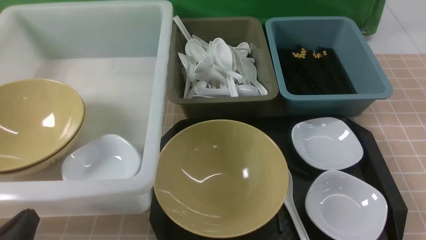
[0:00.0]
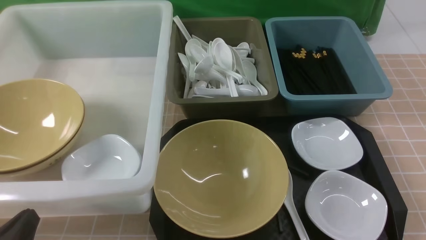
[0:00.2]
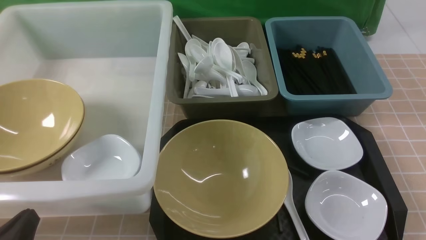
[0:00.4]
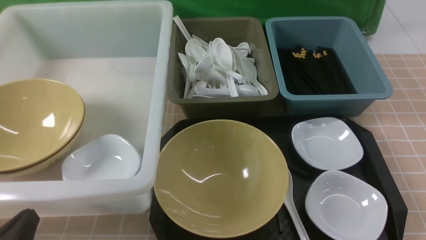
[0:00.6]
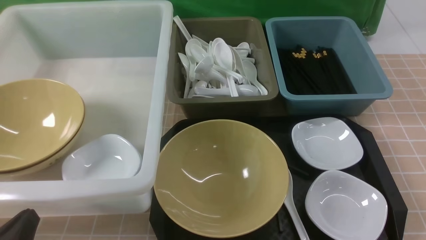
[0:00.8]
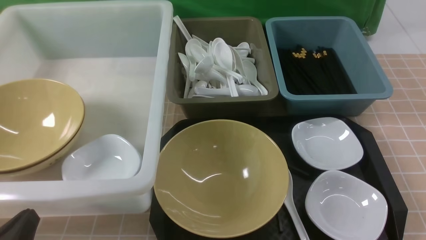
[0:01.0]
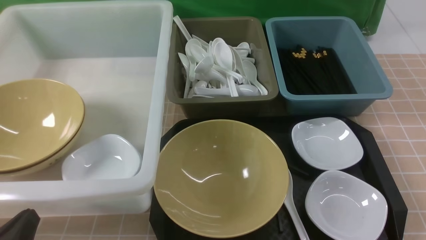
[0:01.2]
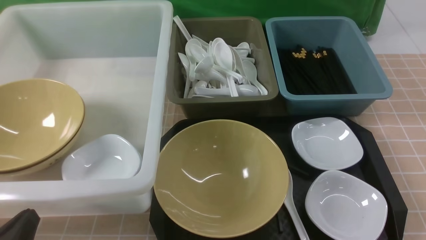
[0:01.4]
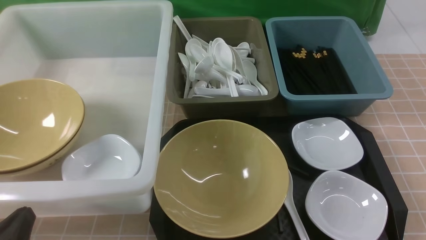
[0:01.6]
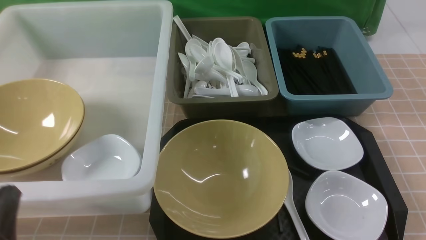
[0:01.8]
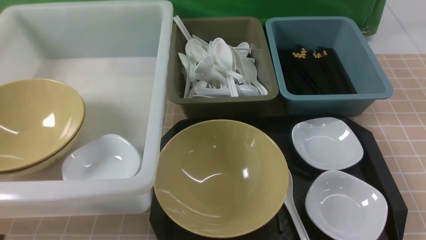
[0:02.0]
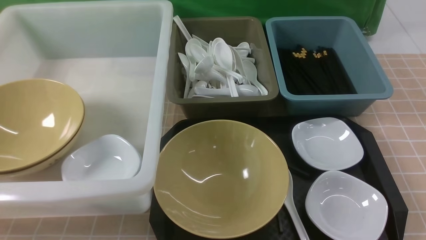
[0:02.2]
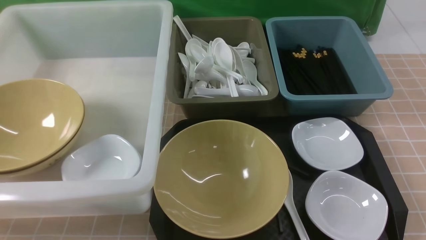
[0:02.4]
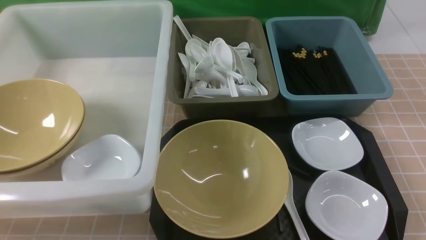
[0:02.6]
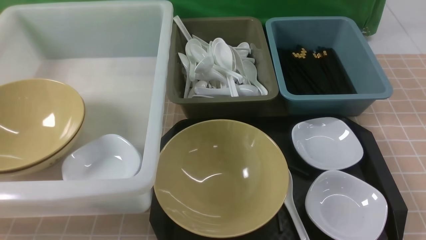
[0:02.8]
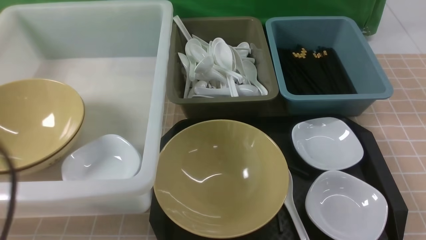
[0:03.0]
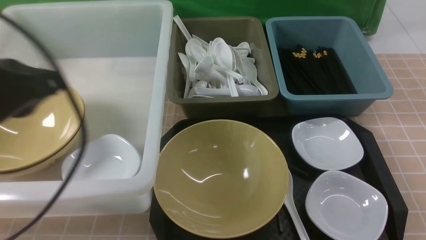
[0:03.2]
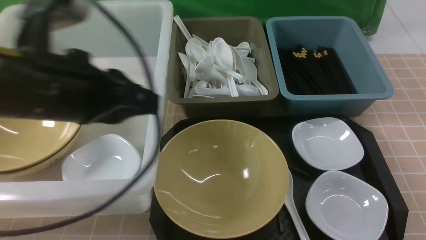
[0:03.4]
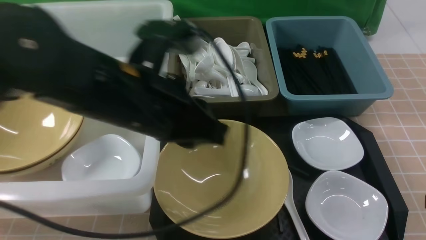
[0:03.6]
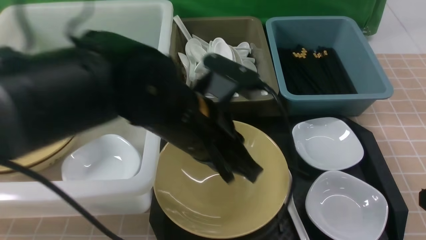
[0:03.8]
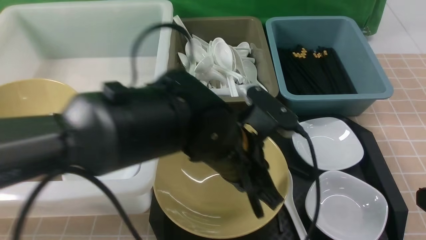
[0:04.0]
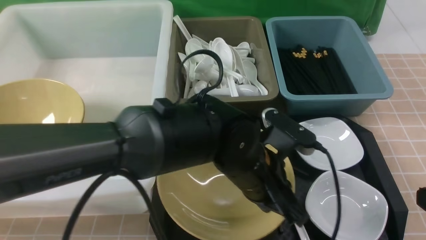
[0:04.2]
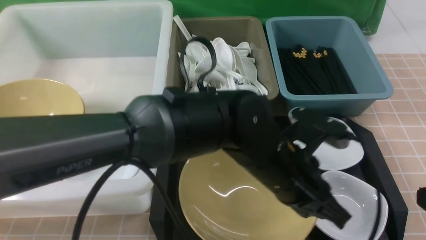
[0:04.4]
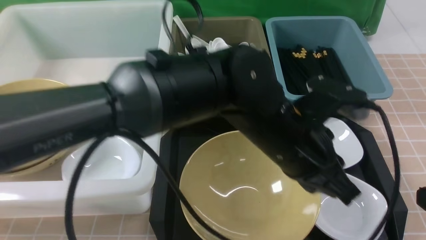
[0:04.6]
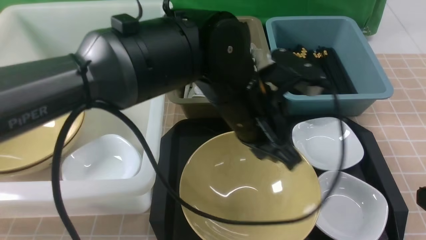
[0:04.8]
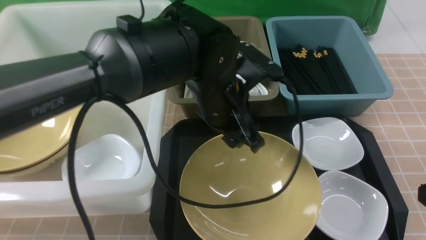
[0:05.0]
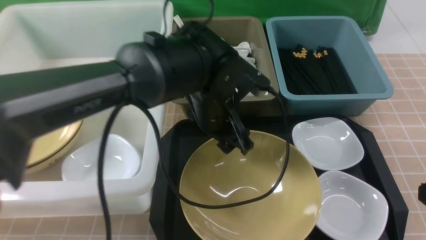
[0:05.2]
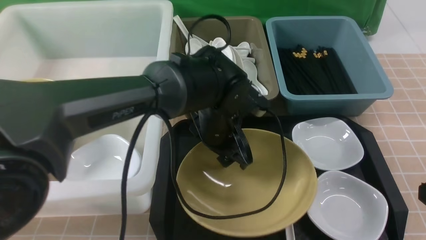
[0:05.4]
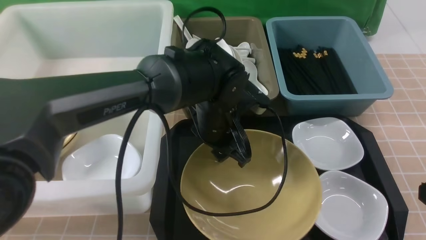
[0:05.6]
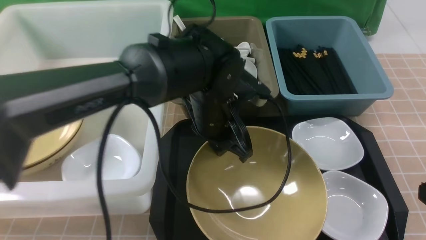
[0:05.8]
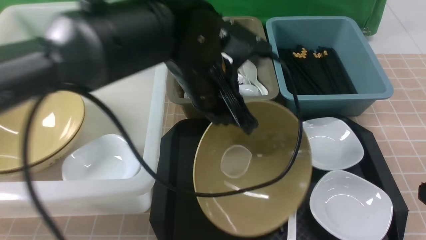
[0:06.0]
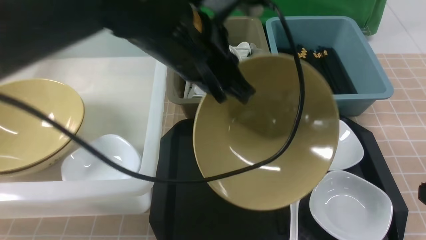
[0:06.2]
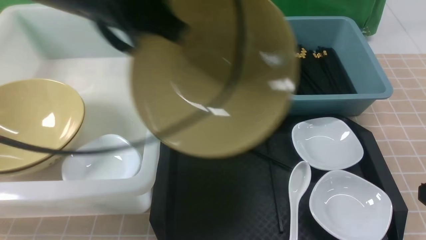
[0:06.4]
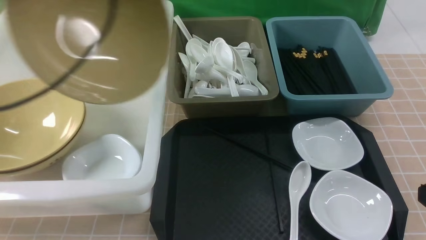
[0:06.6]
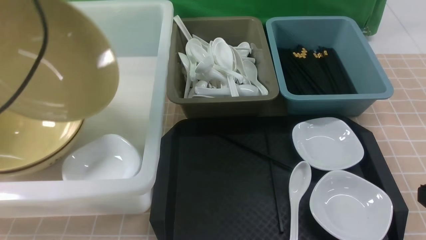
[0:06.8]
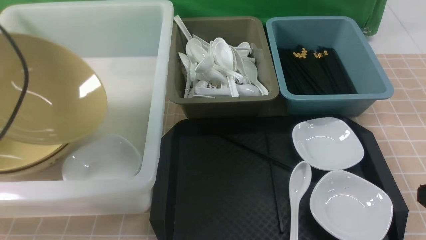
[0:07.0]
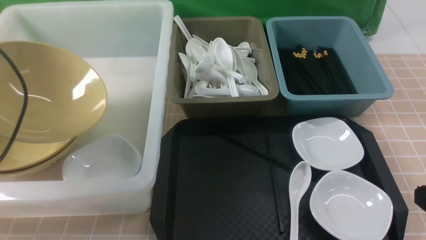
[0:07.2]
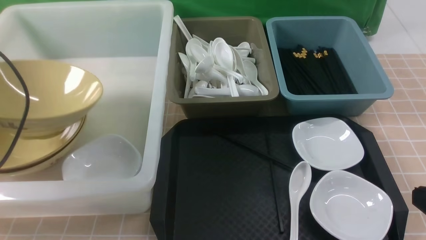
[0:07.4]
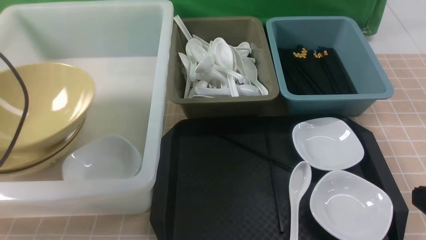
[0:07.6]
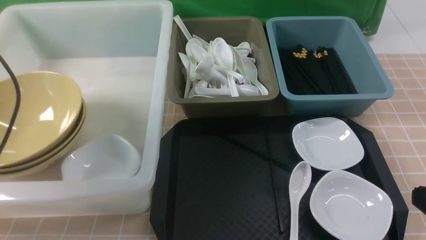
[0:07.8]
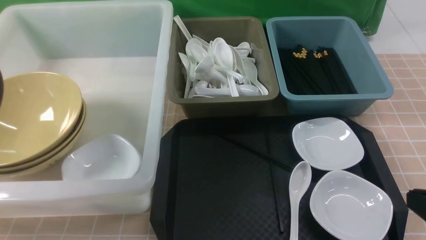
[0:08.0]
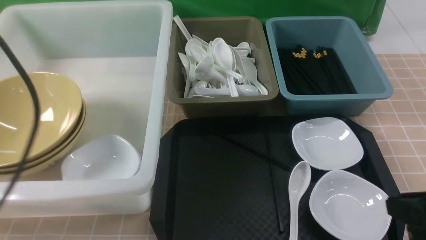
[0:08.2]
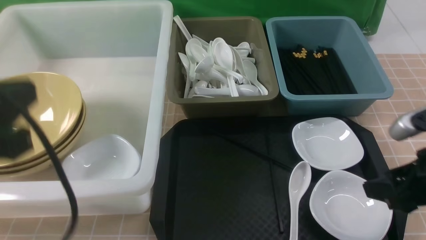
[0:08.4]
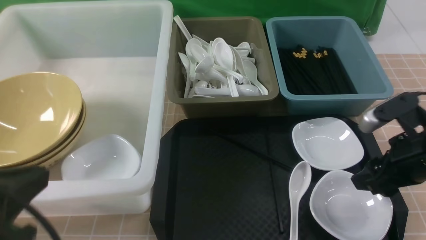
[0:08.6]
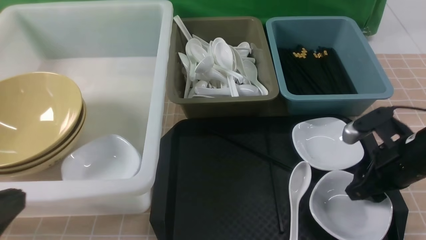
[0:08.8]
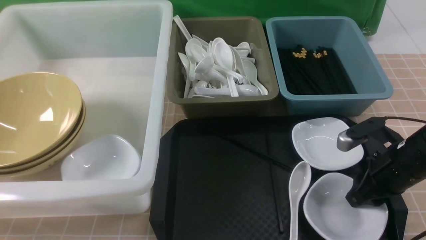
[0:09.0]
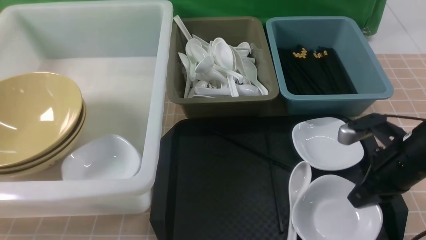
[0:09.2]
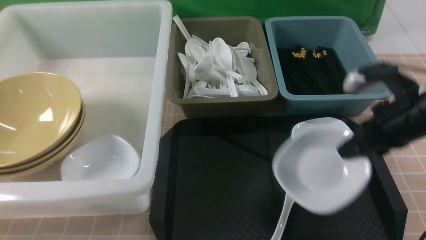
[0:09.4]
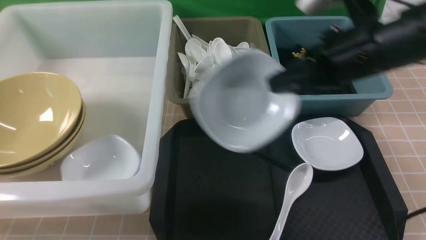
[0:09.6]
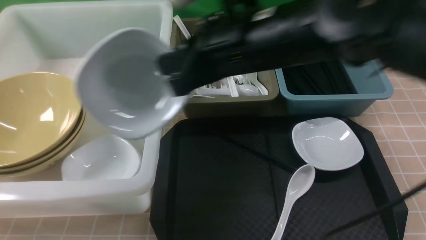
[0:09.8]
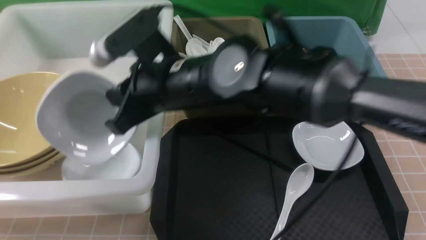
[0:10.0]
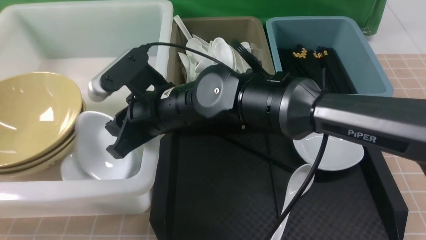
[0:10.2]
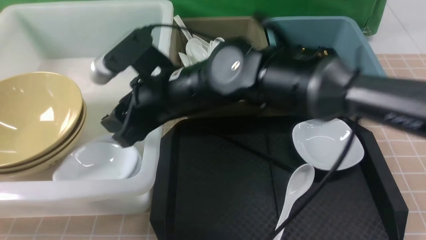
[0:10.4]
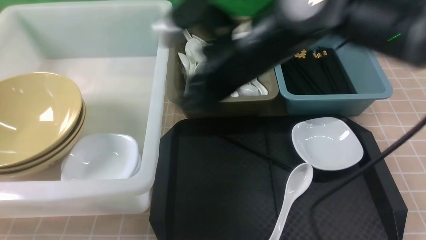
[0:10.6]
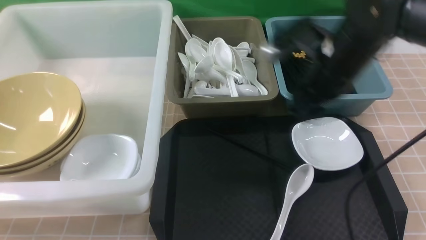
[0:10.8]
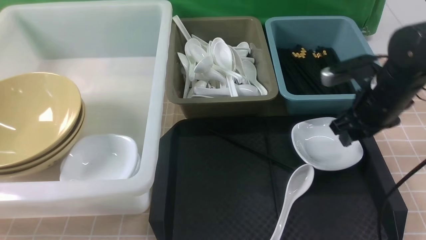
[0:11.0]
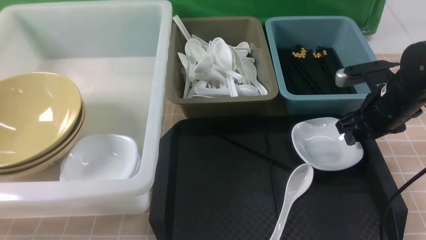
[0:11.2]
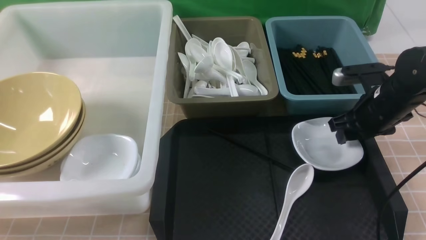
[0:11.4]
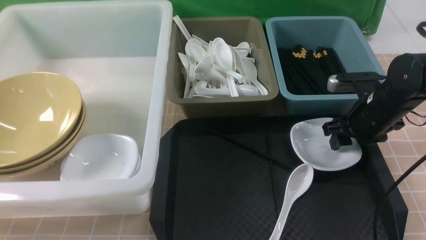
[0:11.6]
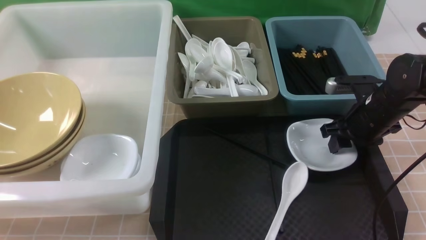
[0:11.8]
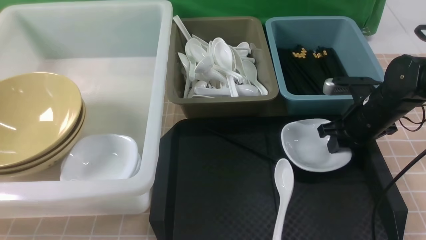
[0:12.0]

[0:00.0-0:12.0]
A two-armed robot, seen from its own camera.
Task of the whole recording: on brown table put chopsticks spoon bowls plates into blue grey white boxes.
Step, 0:00.0 to 0:06.0: use the left arm to grab the yellow noodle bowl on the left.
Step, 0:06.2 to 0:07.6: use the left arm to put the noodle bowl into the large storage box on the left.
Step, 0:07.8 to 0:09.2: use the right arm to grab the plate.
Step, 0:09.6 to 0:10.8: use the right arm to put the plate into the large storage box on the left.
0:01.6 to 0:03.0: The left gripper moves upward, approximately 20 cm.
0:03.0 to 0:04.4: The left gripper moves to the right and downward, roughly 35 cm. Meanwhile the right gripper moves some 5 cm.
0:04.4 to 0:06.0: The left gripper heads to the left, upward and forward, covering roughly 15 cm, and opens and closes again.
0:06.0 to 0:07.6: The left gripper heads to the left, covering some 35 cm, and opens.
0:07.6 to 0:09.0: The left gripper moves backward and to the right, roughly 25 cm, and closes up. The right gripper heads forward and downward, covering some 20 cm, and opens.
0:09.0 to 0:10.4: The right gripper is displaced to the left and upward by some 30 cm, and closes, then reopens.
0:10.4 to 0:12.0: The right gripper goes some 30 cm to the right and downward.

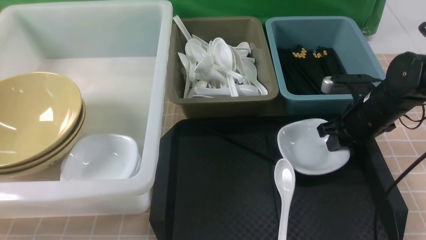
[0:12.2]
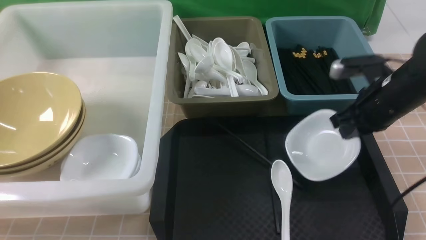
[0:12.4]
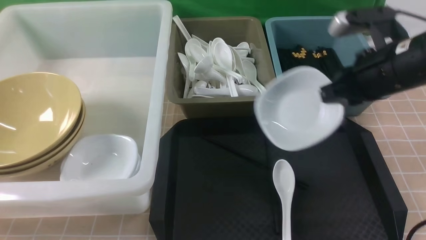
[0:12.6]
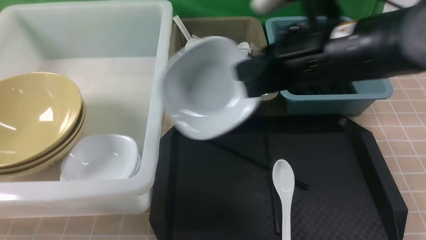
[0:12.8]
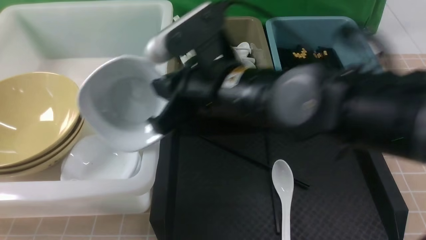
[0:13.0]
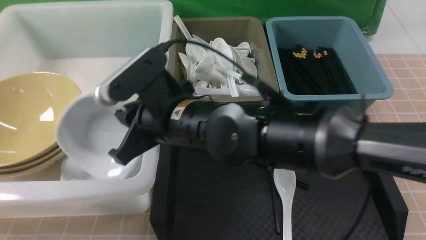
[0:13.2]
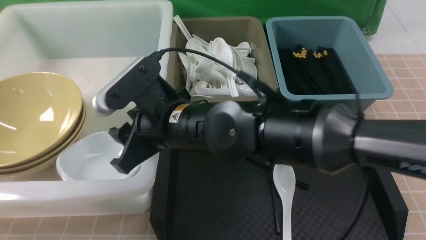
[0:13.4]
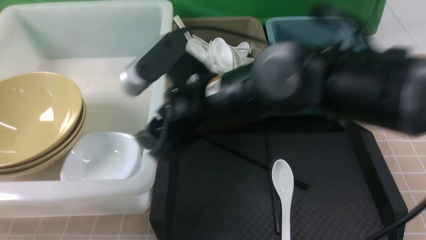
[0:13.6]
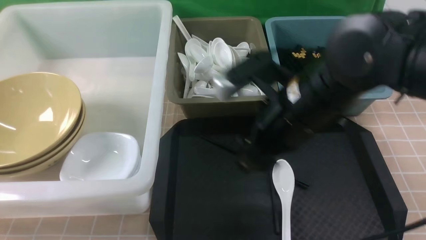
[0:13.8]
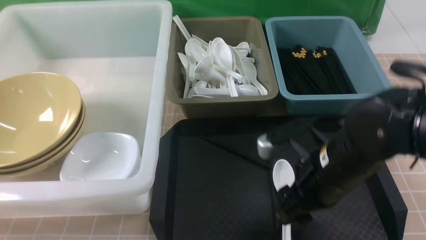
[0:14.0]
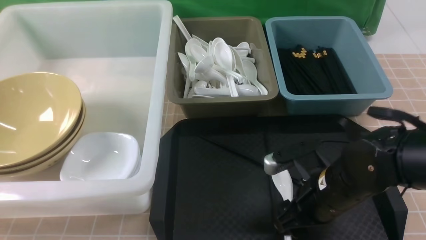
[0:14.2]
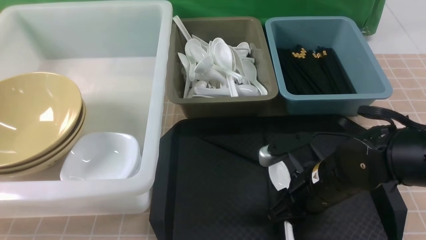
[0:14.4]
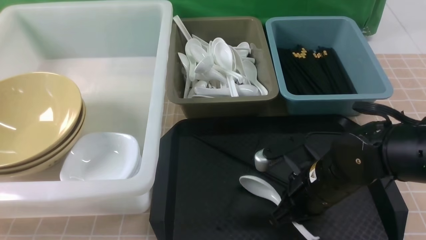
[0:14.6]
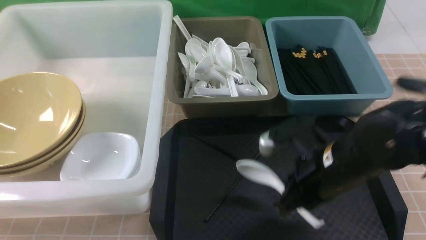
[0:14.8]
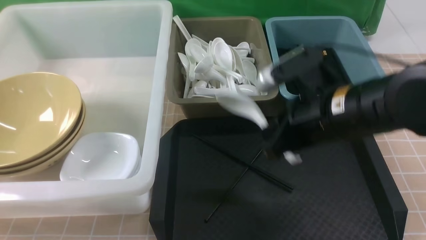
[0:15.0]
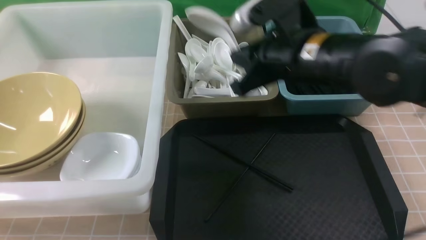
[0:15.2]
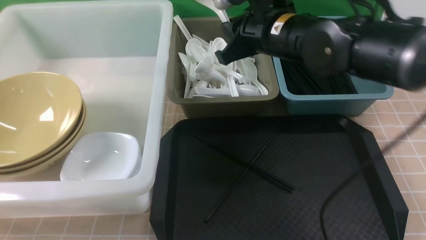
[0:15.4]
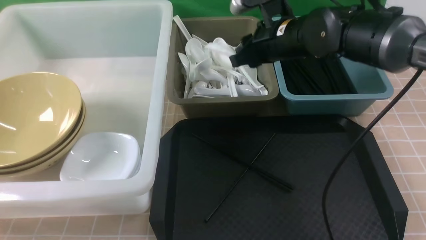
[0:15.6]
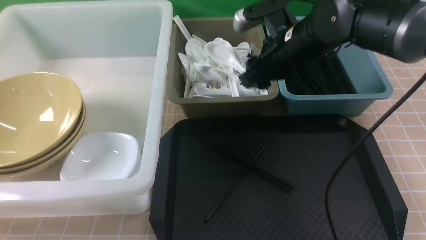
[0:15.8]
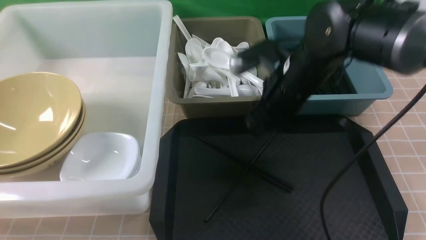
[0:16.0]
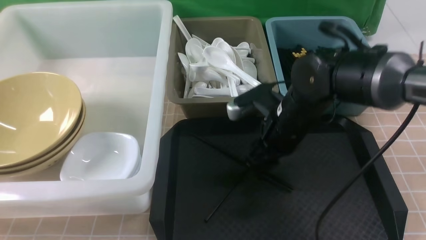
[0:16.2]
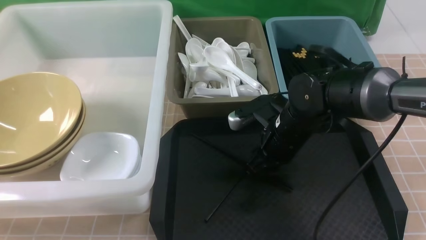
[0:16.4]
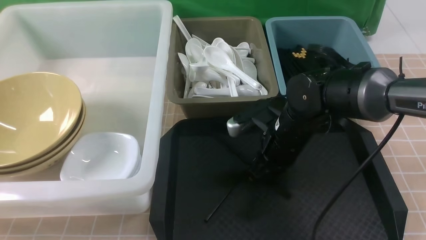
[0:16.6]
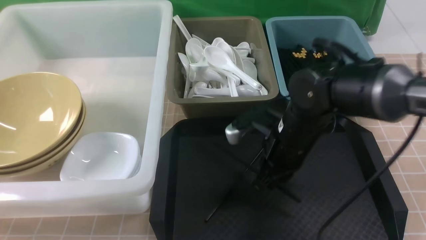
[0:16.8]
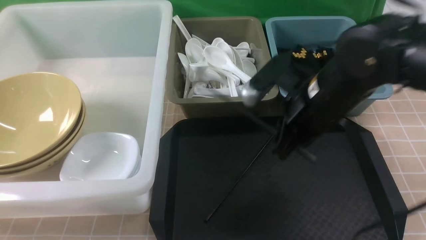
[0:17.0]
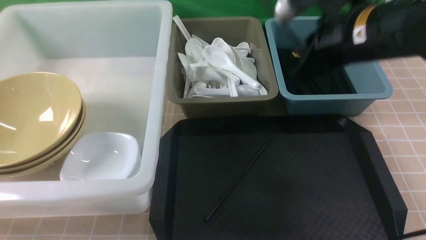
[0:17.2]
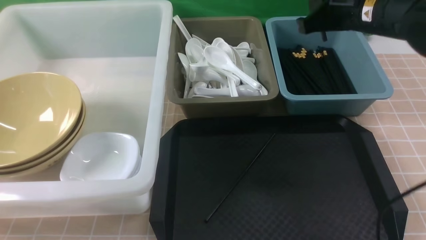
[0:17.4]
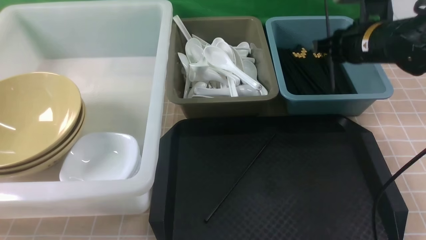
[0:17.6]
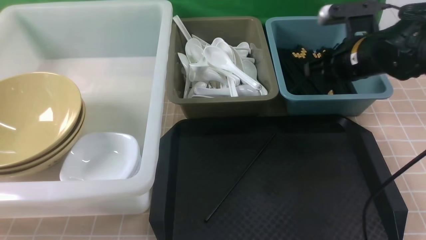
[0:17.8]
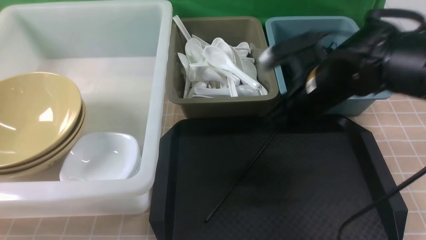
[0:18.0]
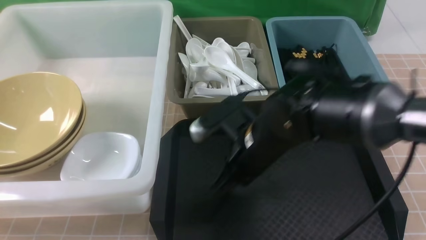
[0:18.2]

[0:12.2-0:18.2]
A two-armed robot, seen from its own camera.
Task of the whole recording: on brown table put chopsticks spoon bowls plates into blue grey white boxes.
Step, 0:12.8 to 0:13.4: use the right arm to put the plate into the large storage box on the left.
Step, 0:13.6 to 0:14.6: use the right arm to grab the soup spoon in the middle.
Step, 0:14.8 to 0:15.6: use the right arm to put the soup spoon into the small storage box in the middle.
Step, 0:16.0 to 0:17.2: use the right arm to grab a chopstick.
Step, 0:17.4 to 0:17.8: use the right arm to put a chopstick into the small storage box on the right.
0:12.2 to 0:13.8: The right gripper is displaced to the left, backward and upward by some 20 cm, and opens up.
0:13.8 to 0:15.2: The right gripper is displaced forward by about 5 cm, travels downward and back again, approximately 10 cm each way, and closes up.
0:15.2 to 0:16.6: The right gripper goes about 15 cm downward, and opens and closes again.
0:16.6 to 0:18.2: The right gripper moves about 10 cm to the right and comes back.
